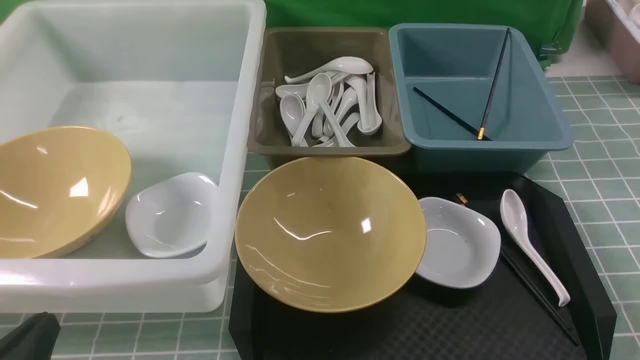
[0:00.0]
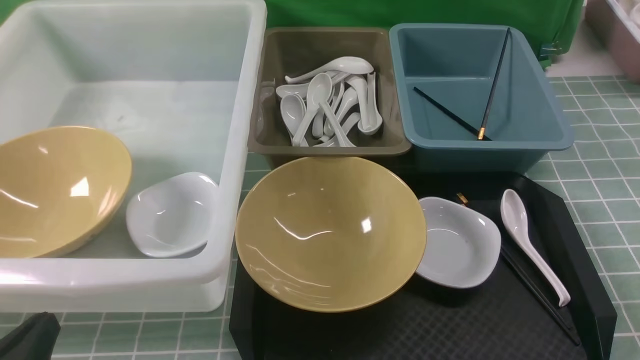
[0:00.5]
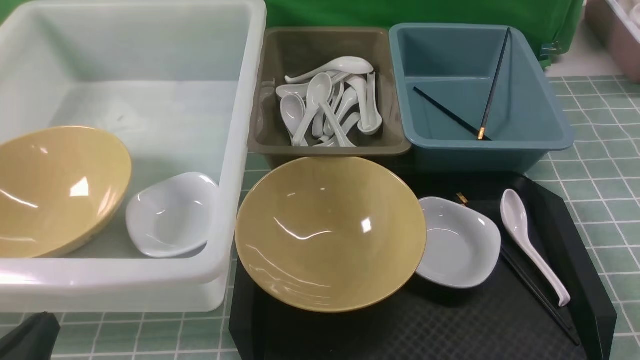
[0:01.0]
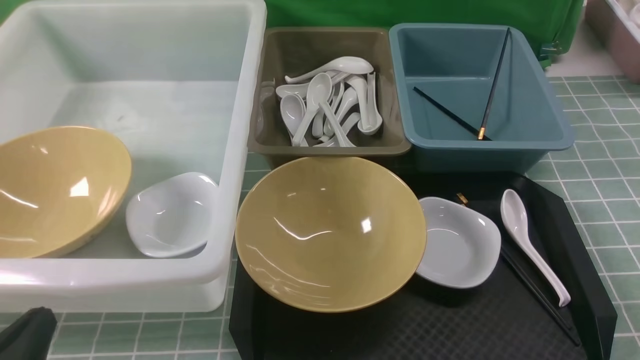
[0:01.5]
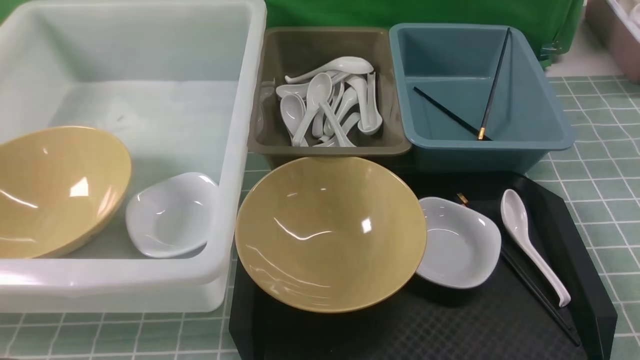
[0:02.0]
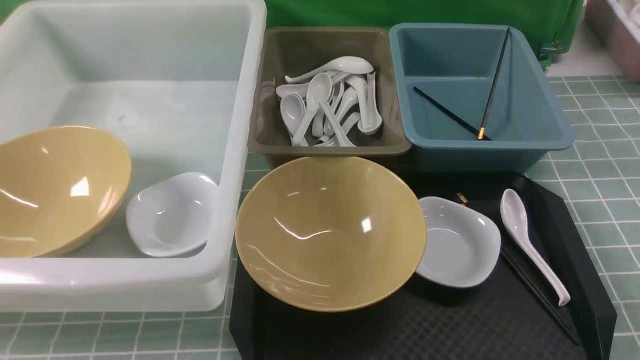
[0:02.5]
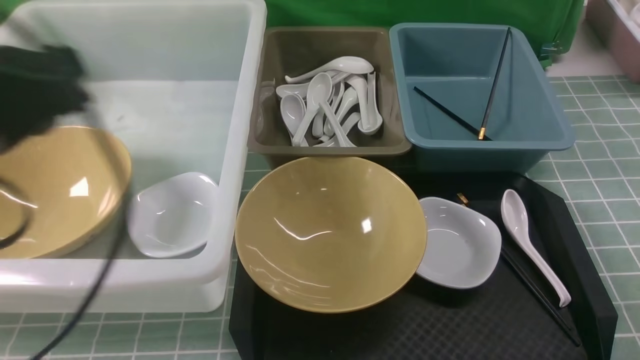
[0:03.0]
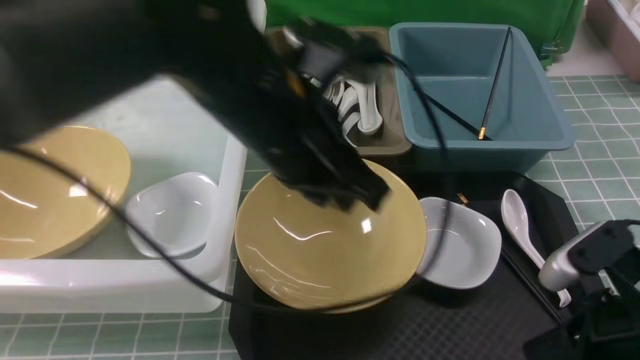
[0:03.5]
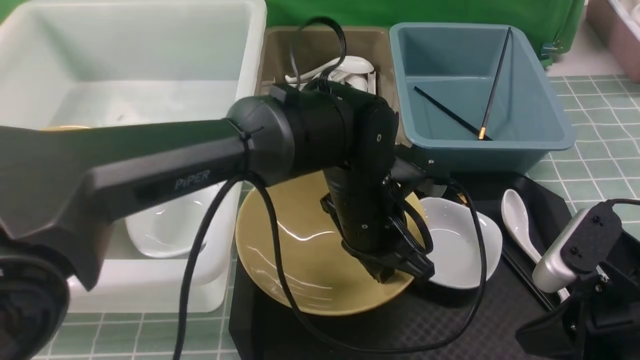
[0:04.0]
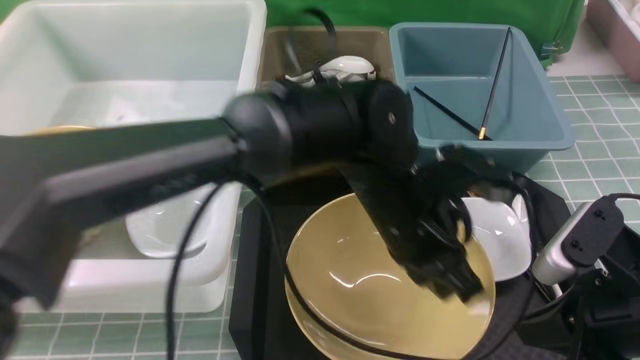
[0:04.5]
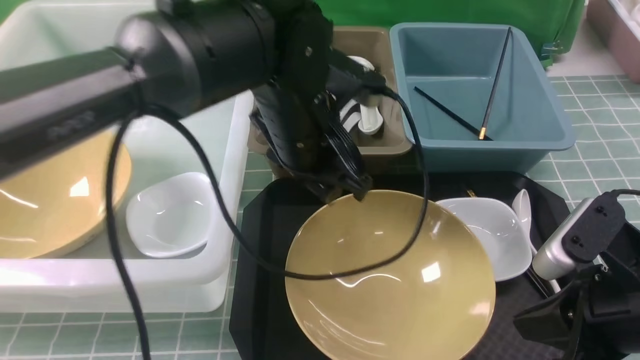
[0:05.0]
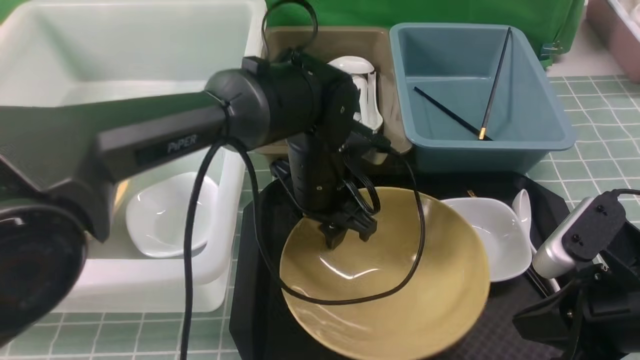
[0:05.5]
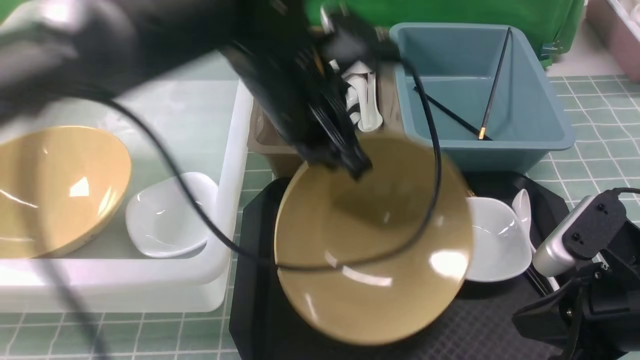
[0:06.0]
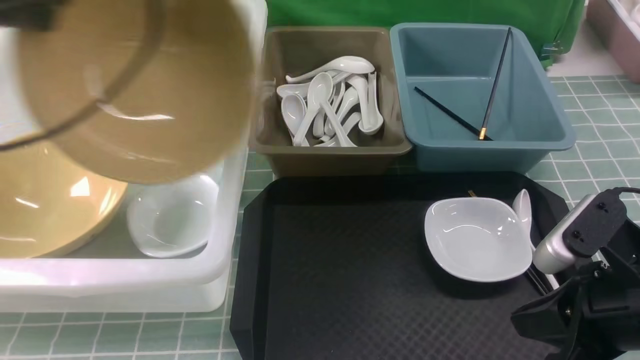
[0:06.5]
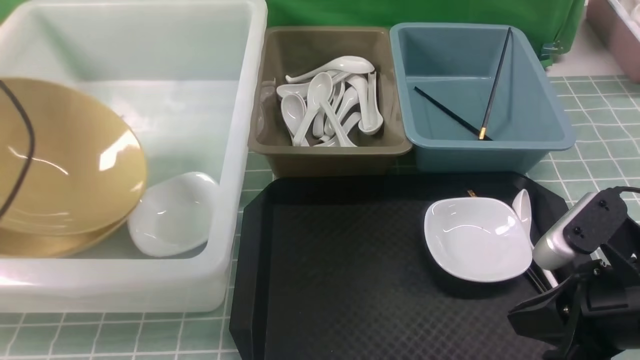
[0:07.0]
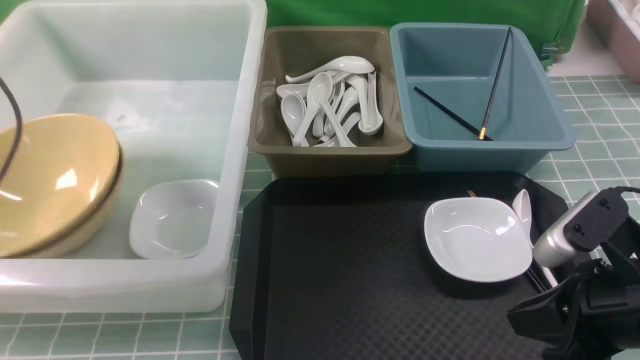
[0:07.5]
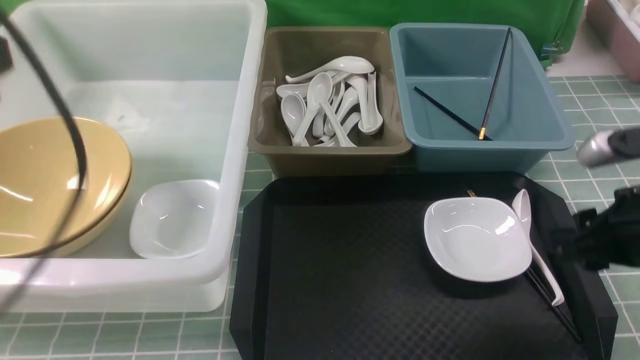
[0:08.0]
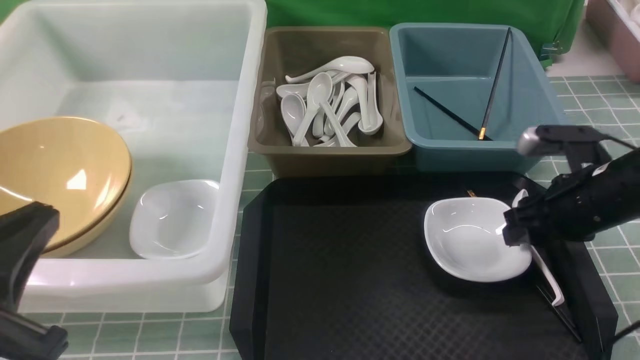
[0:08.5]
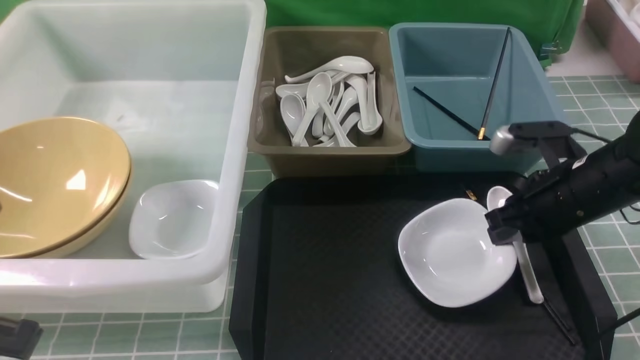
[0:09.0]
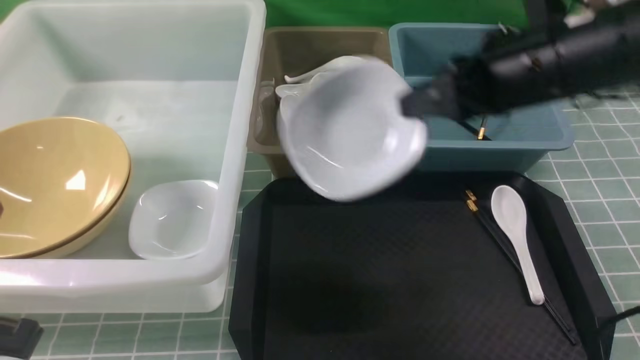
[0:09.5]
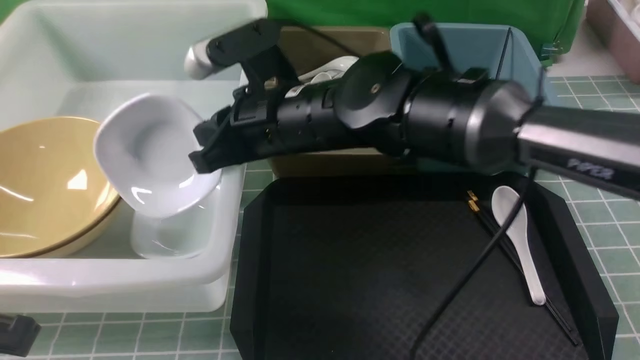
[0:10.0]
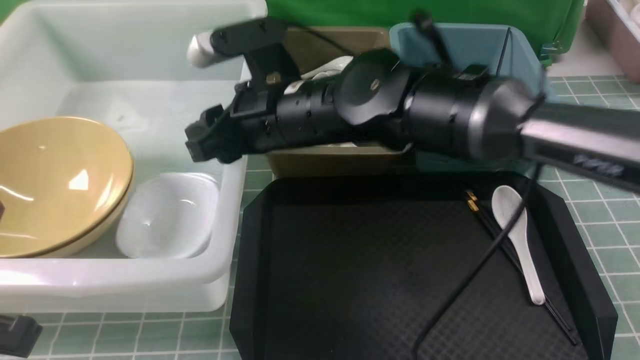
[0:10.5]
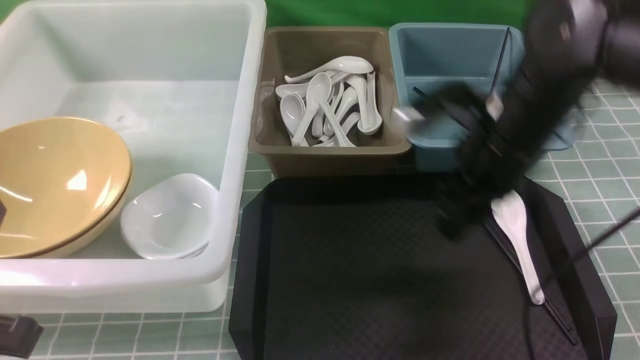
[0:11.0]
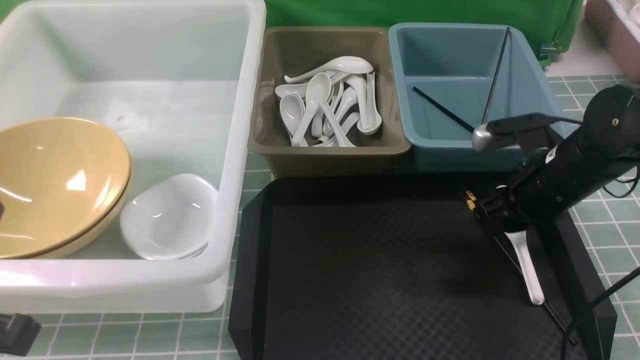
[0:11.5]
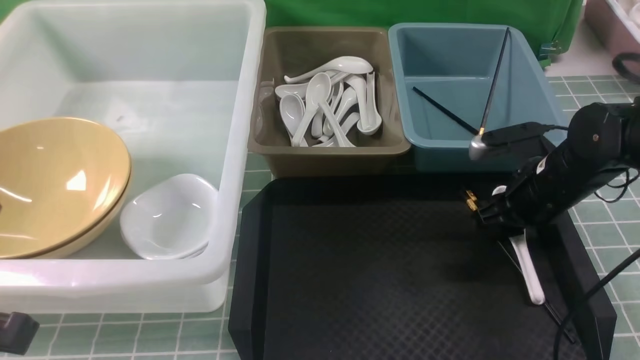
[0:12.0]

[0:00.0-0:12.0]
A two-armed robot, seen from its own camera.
Task of the whole recording: on blue table put chopsticks spoon bowls plates into blue grey white boxes.
Step, 0:00.0 to 0:05.5: use the left arm to grab the yellow noodle bowl on the left.
Step, 0:06.0 to 0:07.0: use the left arm to put the noodle bowl into the large storage box on the left.
Step, 0:07.5 to 0:09.0: use the right arm to grab the plate.
Step, 0:09.5 to 0:10.5: use the right arm to put the plate into the large storage box on the left.
0:00.0 to 0:02.0: The left gripper travels upward by some 5 cm.
0:02.0 to 0:04.0: The left gripper travels to the right and forward by roughly 35 cm; the right gripper shifts approximately 15 cm forward and to the left, and closes up.
0:04.0 to 0:06.0: The left gripper moves up and down over some 15 cm, changing direction 2 times, and opens, then closes again.
0:06.0 to 0:08.0: The left gripper is displaced to the left and backward by approximately 25 cm, and opens, then closes again. The right gripper moves forward, some 5 cm, and opens its fingers.
0:08.0 to 0:10.0: The left gripper shifts about 15 cm downward and backward. The right gripper shifts about 30 cm to the left, and closes up.
0:10.0 to 0:12.0: The right gripper is displaced to the right and downward by some 30 cm, and opens its fingers.

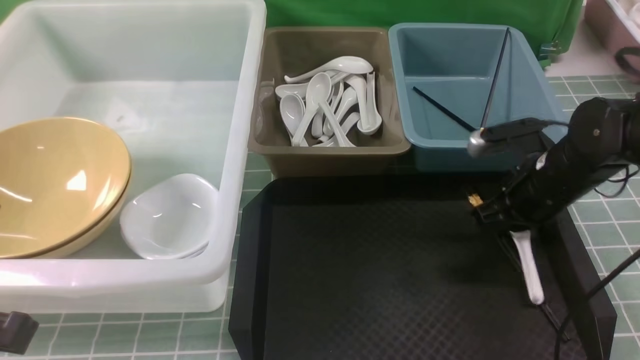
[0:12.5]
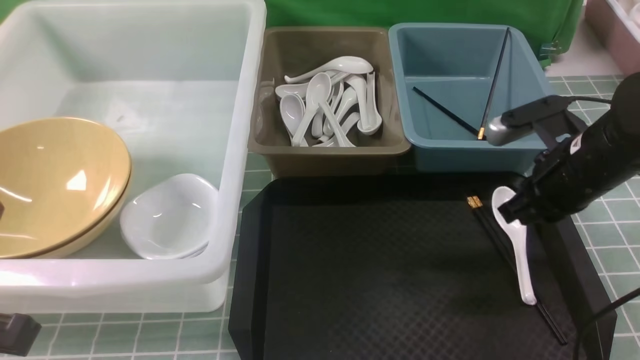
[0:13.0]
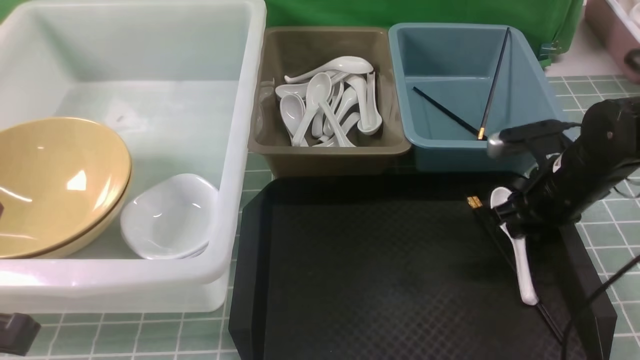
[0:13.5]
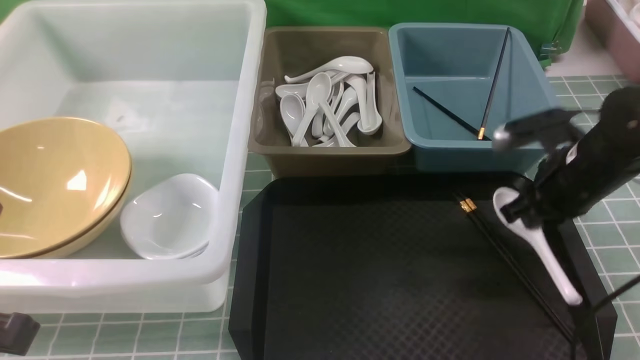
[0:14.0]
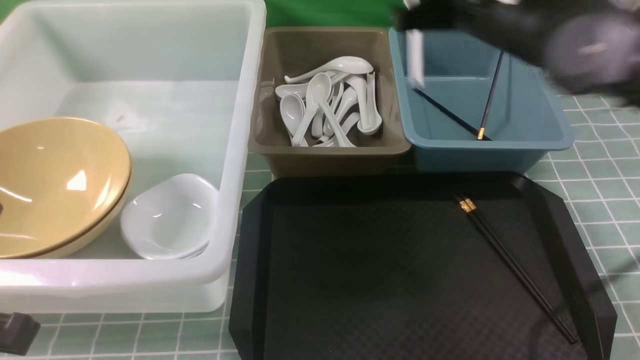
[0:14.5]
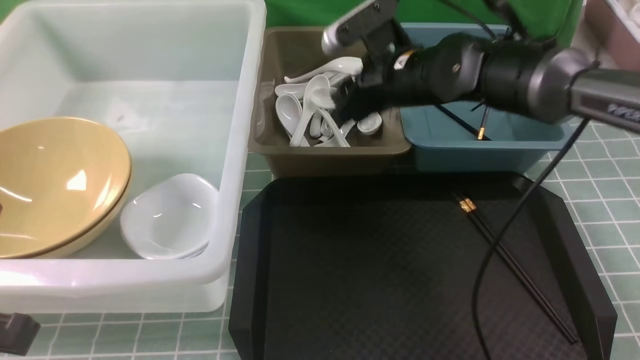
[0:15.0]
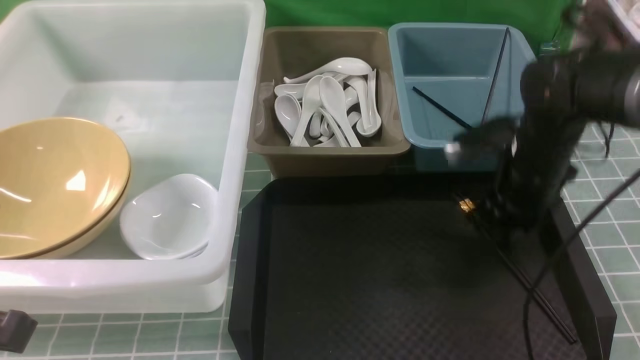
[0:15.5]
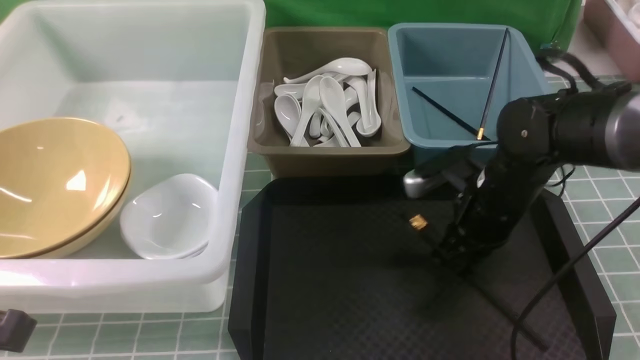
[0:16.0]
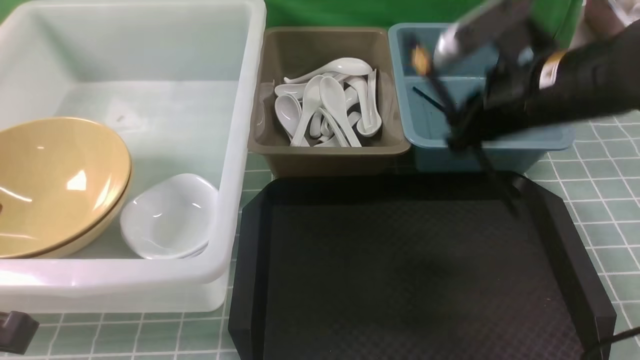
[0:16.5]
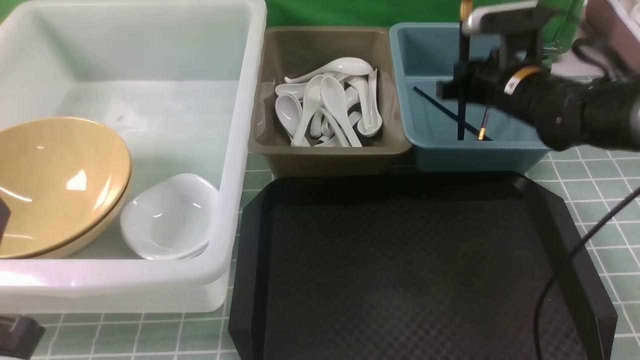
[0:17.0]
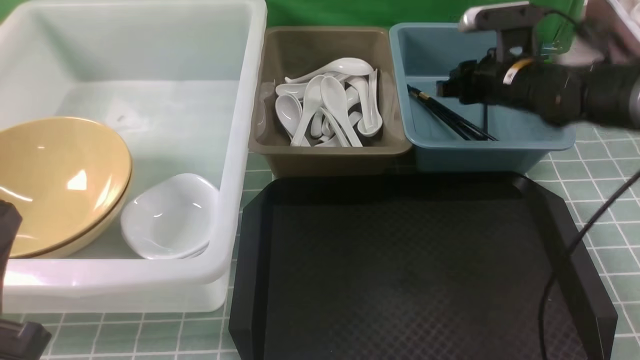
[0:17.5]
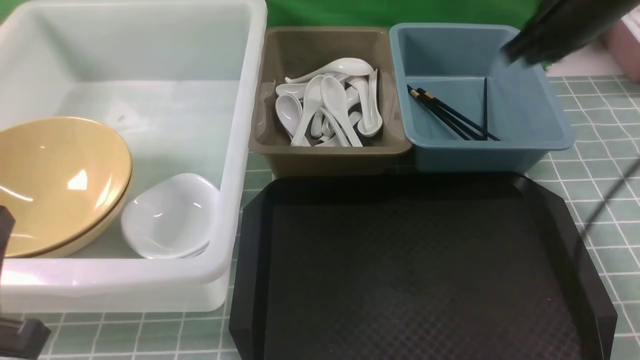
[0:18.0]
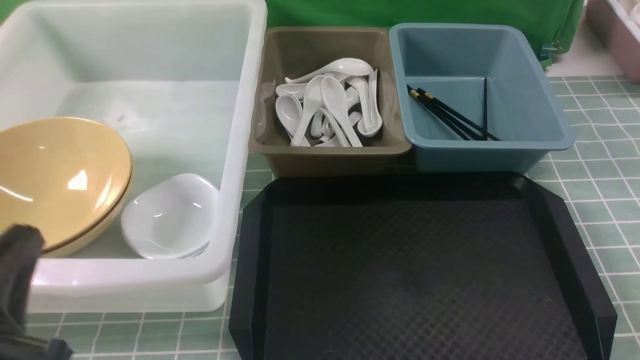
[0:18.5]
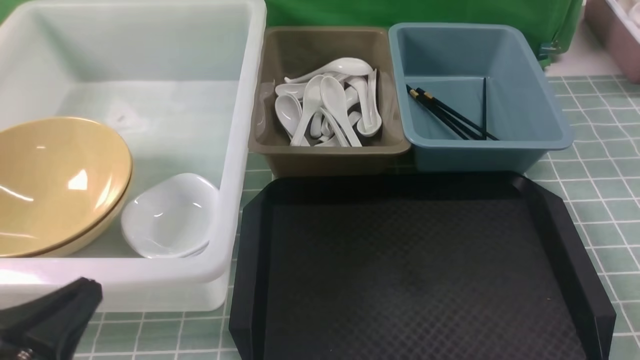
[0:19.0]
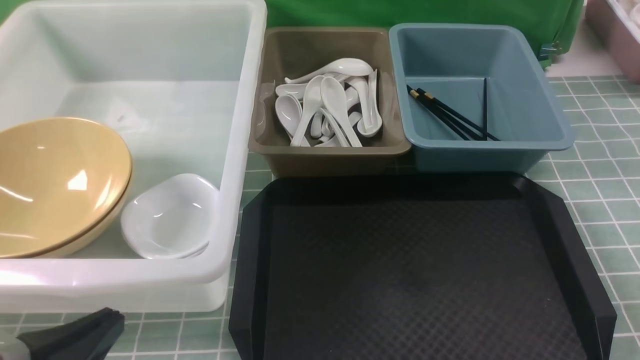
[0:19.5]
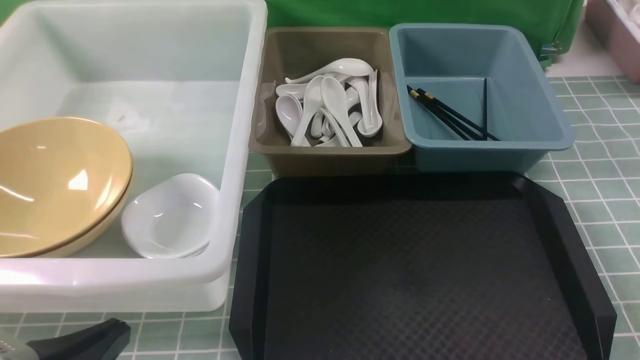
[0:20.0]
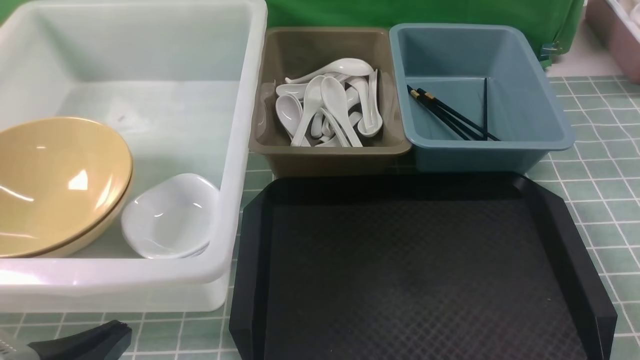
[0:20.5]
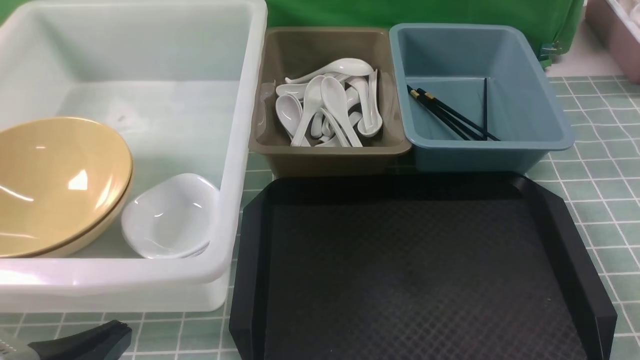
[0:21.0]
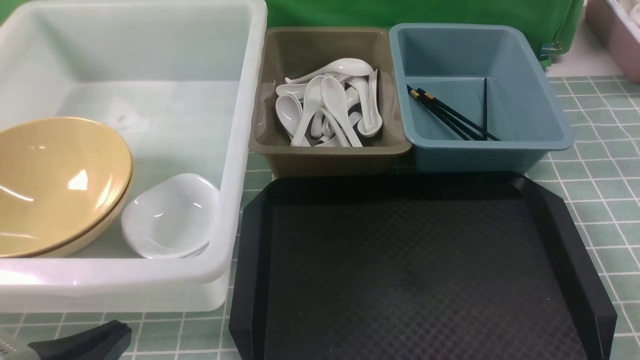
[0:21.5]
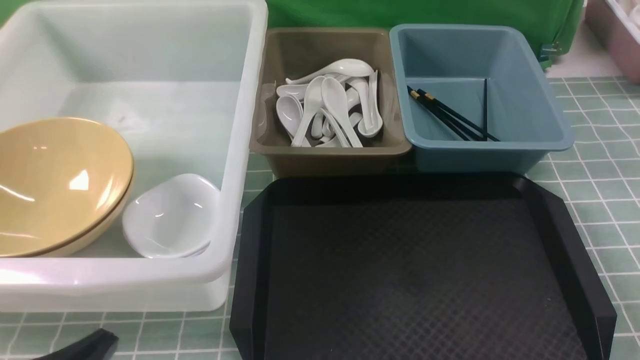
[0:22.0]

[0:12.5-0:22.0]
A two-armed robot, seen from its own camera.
Task of the whole recording: on blue table put chopsticks spoon bowls plates into blue grey white boxes.
Step, 0:14.5 to 0:15.0: use the right arm to put the soup spoon into the small storage box in the middle.
Step, 0:15.5 to 0:16.5: use the right arm to grab the chopsticks.
0:12.5 to 0:14.5: The right gripper swings up and down, about 15 cm each way, with 2 reversals, and opens, then closes again.
0:14.5 to 0:16.5: The right gripper shifts about 5 cm backward, moves some 15 cm downward and comes back, and opens and closes again.
0:16.5 to 0:18.0: The right gripper heads to the right, upward and forward, covering approximately 10 cm.
0:18.0 to 0:20.0: The right gripper heads backward and downward, covering roughly 40 cm; the left gripper goes about 5 cm downward.
